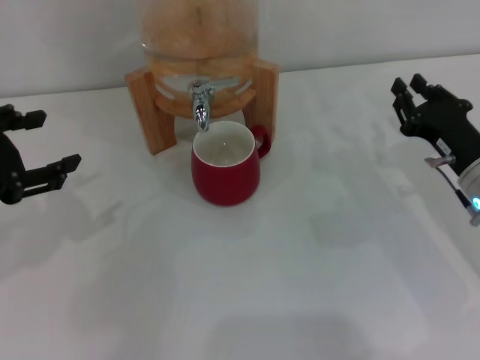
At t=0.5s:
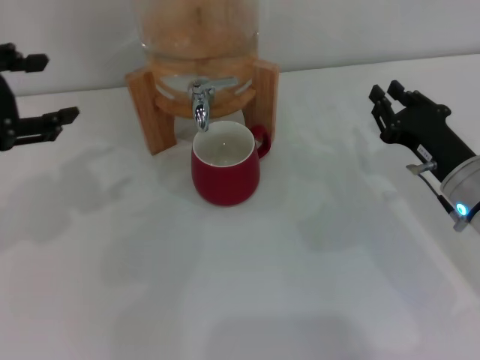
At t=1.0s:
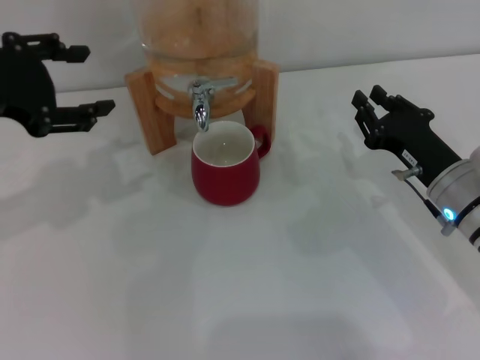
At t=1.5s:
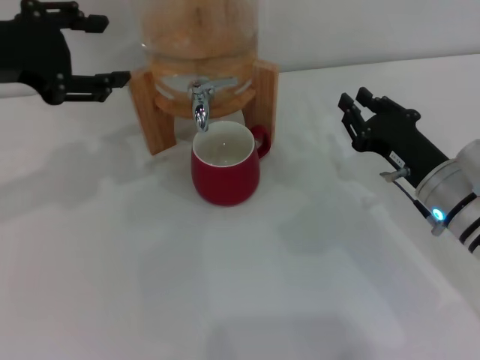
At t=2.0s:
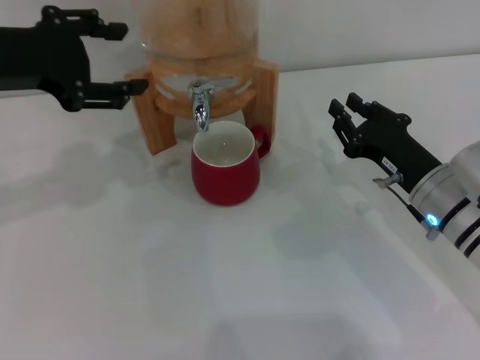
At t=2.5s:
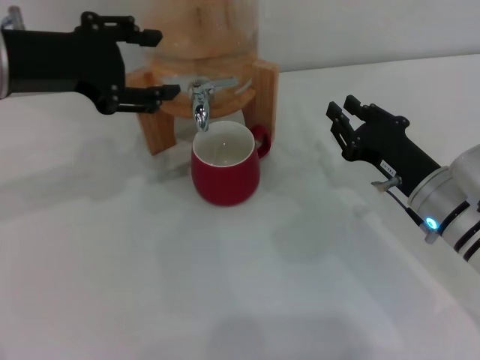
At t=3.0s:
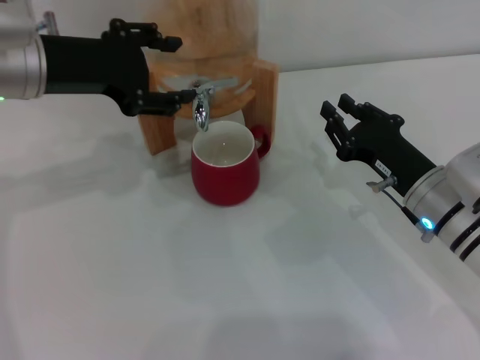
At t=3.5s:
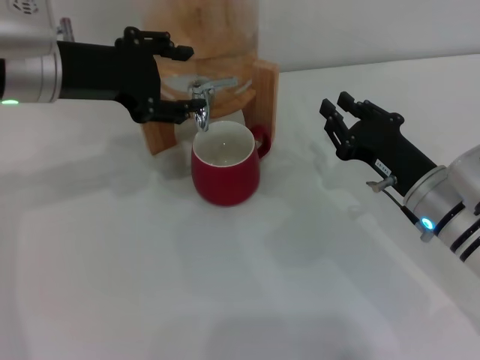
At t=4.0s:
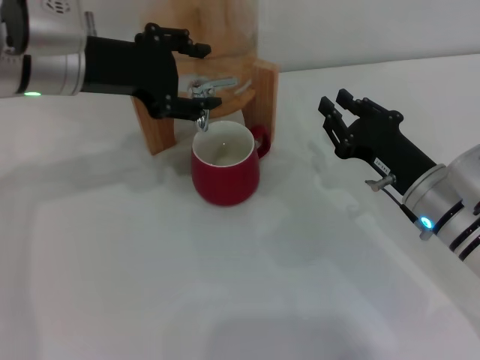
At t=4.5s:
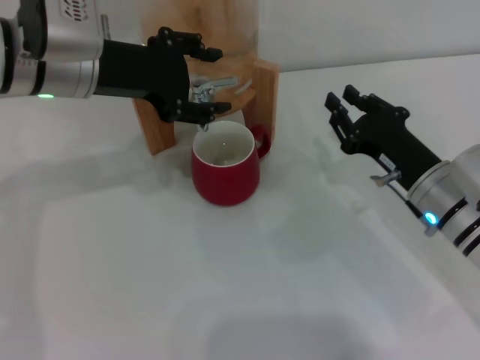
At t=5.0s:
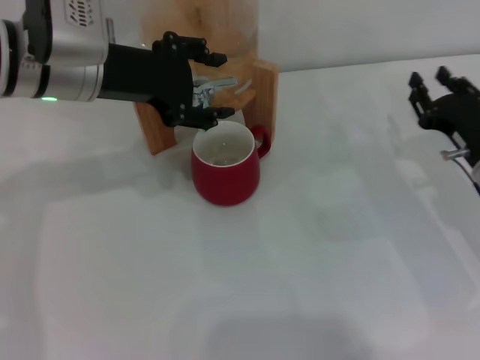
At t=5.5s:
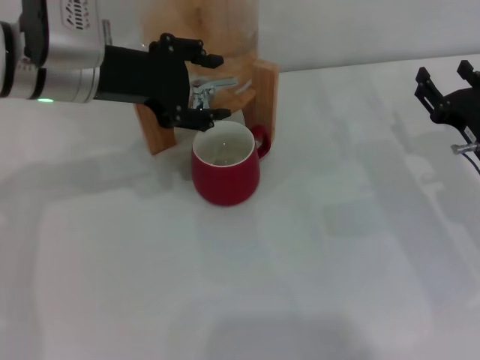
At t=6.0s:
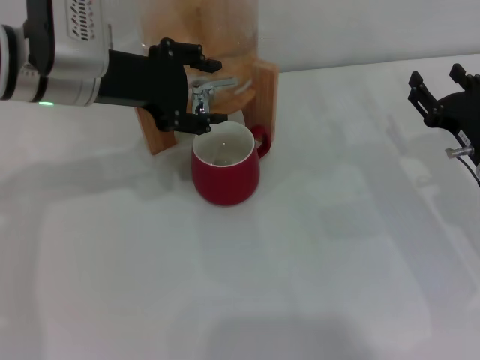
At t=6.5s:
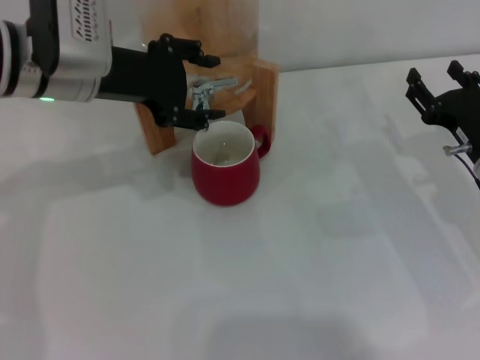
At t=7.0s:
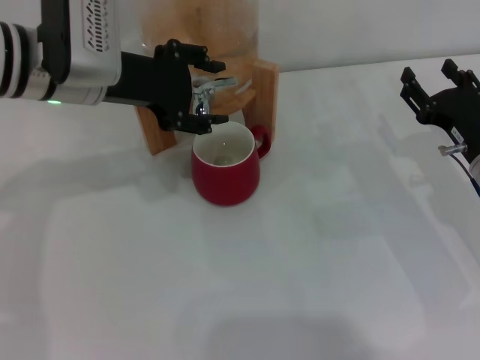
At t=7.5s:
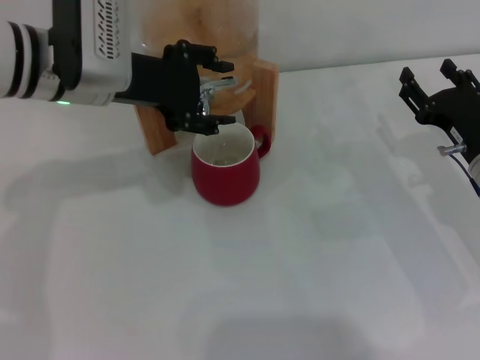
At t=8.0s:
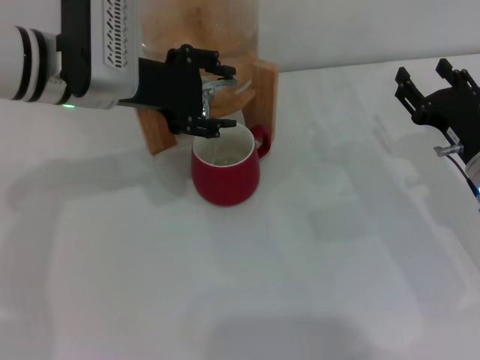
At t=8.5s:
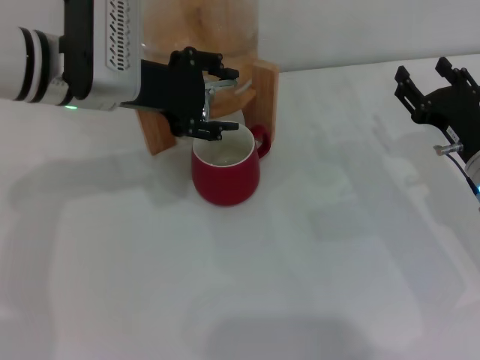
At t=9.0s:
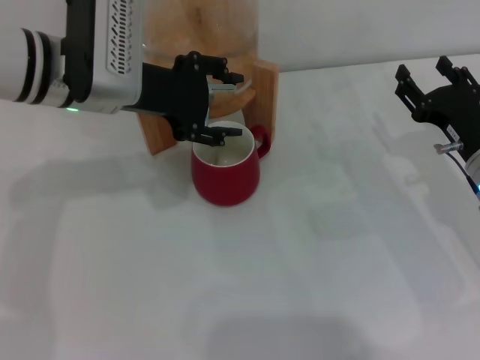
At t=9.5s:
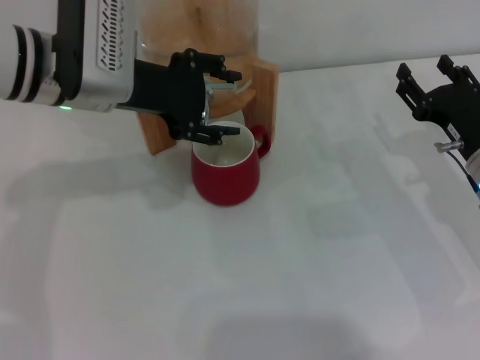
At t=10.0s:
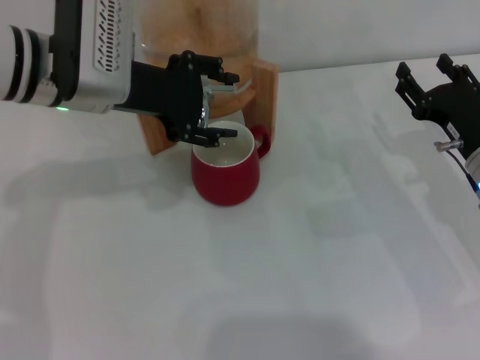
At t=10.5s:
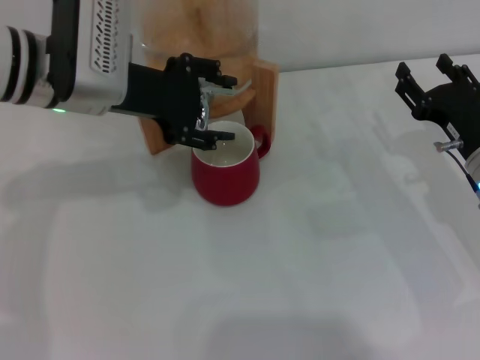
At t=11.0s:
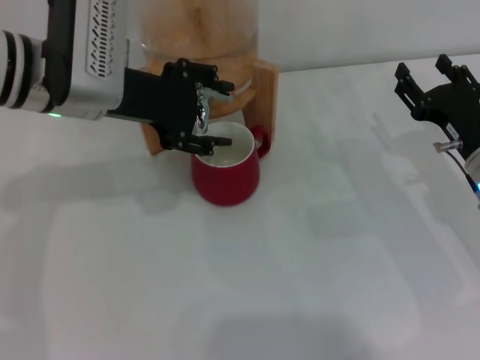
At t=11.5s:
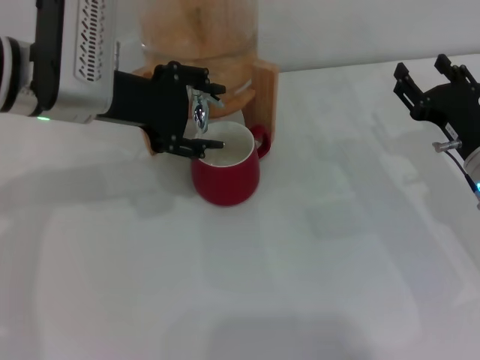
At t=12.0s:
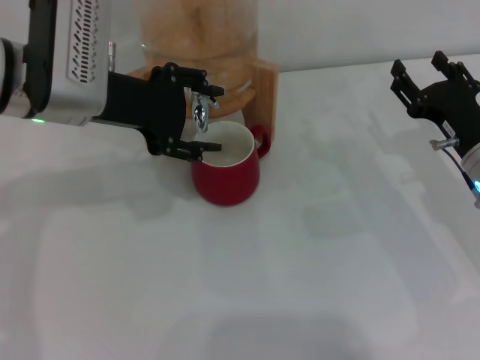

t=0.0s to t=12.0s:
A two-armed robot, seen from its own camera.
Task of the whole recording: the right gripper pick up the red cup and place it horizontally under the faucet, the left gripper turn on the faucet to fill the cup, and then turn off the faucet.
t=0.0s to t=2.0s: The left gripper is displaced forward and to the right by about 10 cm.
t=2.0s to t=4.0s: The left gripper goes roughly 5 cm to the right.
t=4.0s to t=6.0s: The right gripper heads to the right, covering about 10 cm, and opens its fingers.
t=6.0s to t=8.0s: There are only small adjustments of the grippers.
t=8.0s to t=10.0s: Both grippers stay put.
t=10.0s to t=12.0s: There are only small adjustments of the grippers.

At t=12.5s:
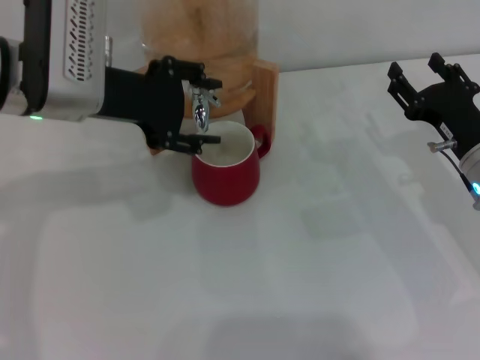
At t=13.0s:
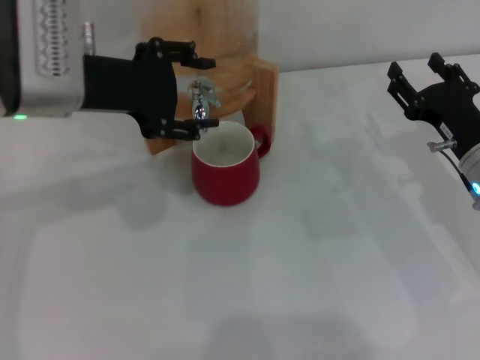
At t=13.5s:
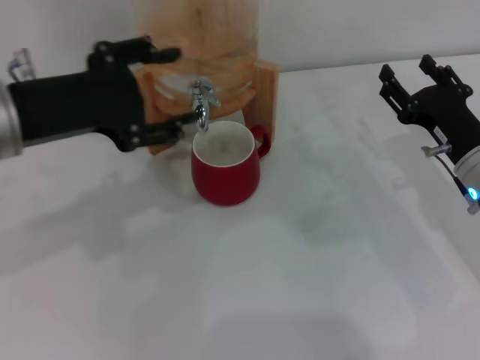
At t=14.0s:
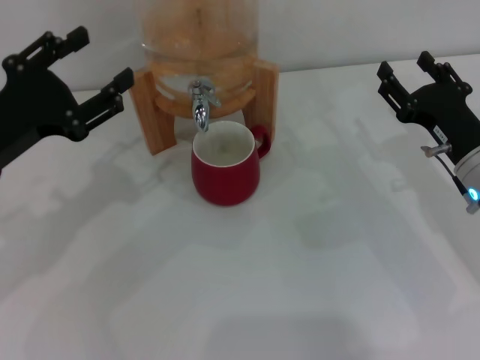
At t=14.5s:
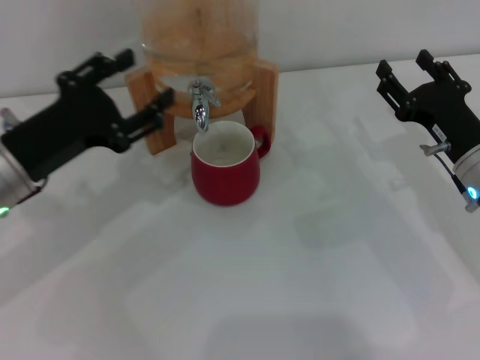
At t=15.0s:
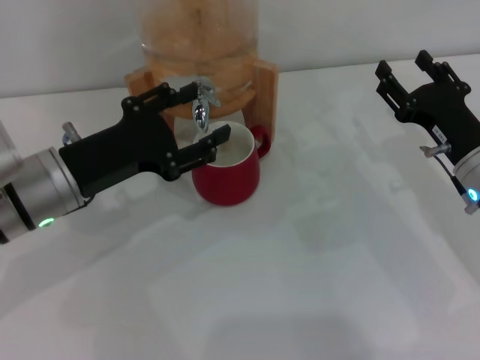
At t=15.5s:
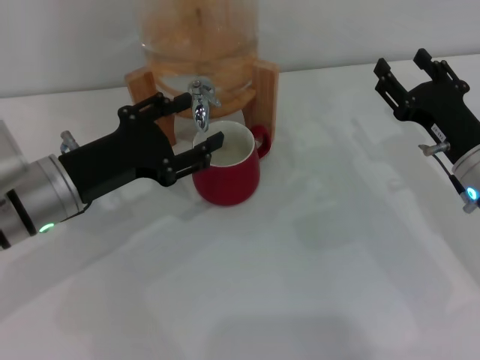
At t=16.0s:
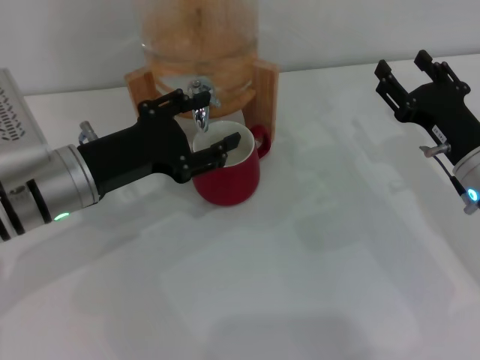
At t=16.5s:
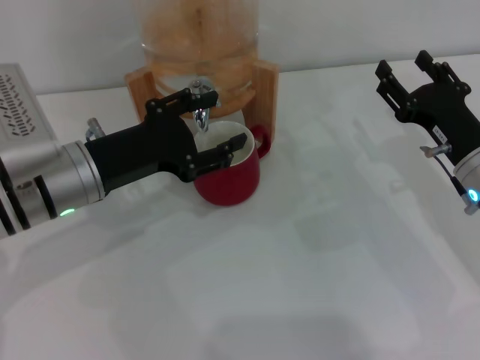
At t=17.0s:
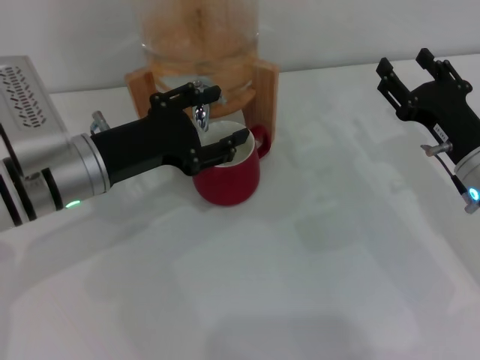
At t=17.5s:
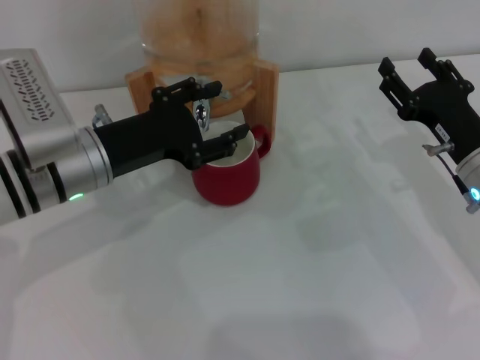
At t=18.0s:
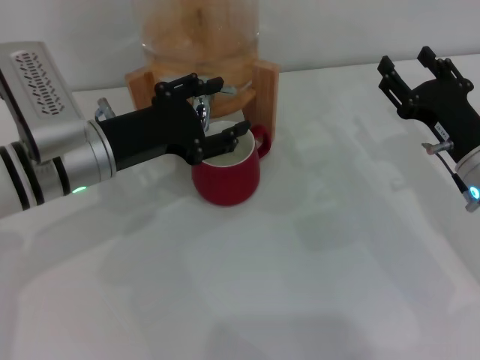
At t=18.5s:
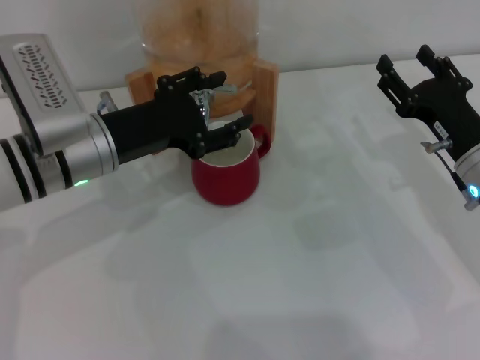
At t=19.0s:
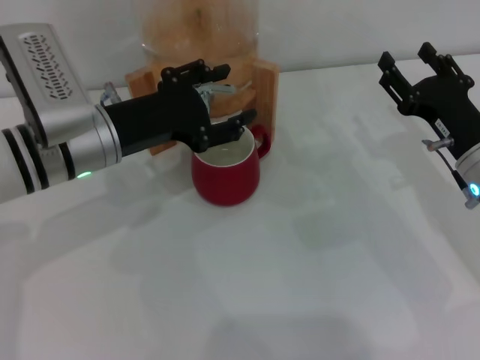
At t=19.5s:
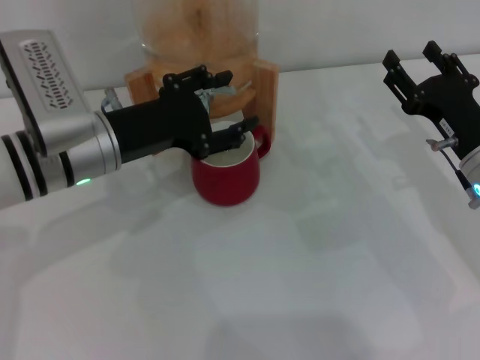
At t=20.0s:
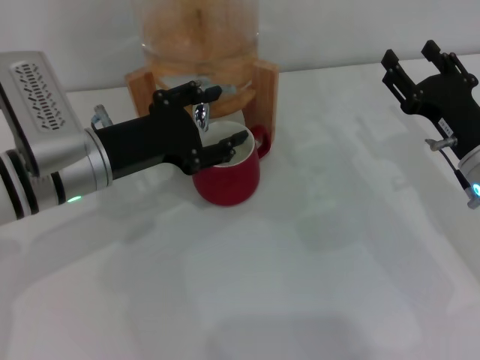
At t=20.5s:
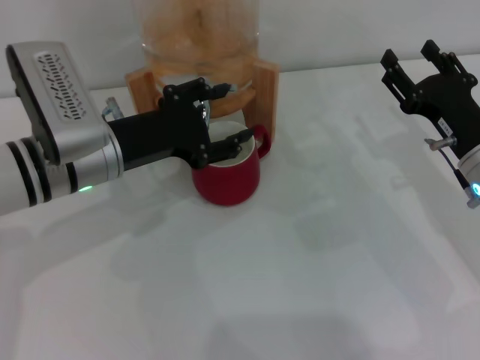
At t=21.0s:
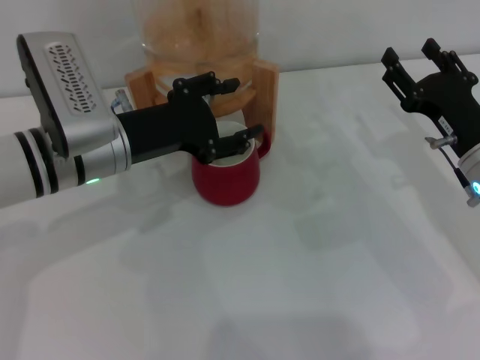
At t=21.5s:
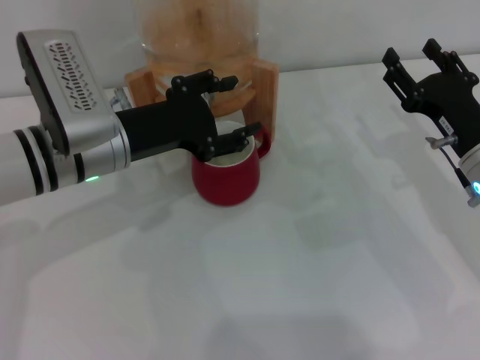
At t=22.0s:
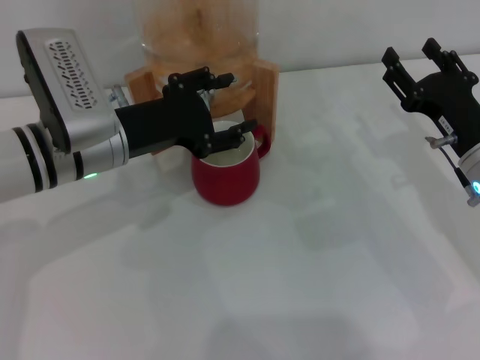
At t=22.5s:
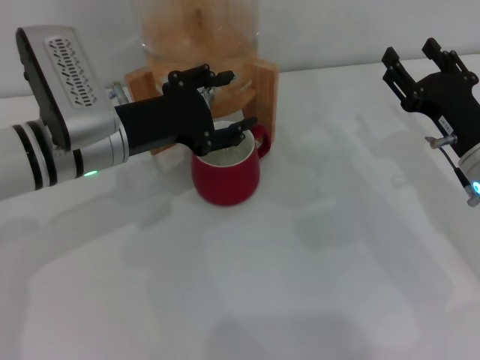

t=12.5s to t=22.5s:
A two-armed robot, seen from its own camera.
Task of the whole recording: the right gripper pick up the red cup and place it horizontally under the faucet, the left gripper turn on the faucet to fill the cup, and then turn off the faucet.
t=12.5s to t=14.5s: The left gripper travels downward, to the left and backward by roughly 10 cm.
t=14.5s to t=16.5s: The left gripper shifts roughly 5 cm to the right.
t=16.5s to t=20.5s: There are only small adjustments of the grippers.
t=20.5s to t=22.5s: Both grippers stay about where they are.

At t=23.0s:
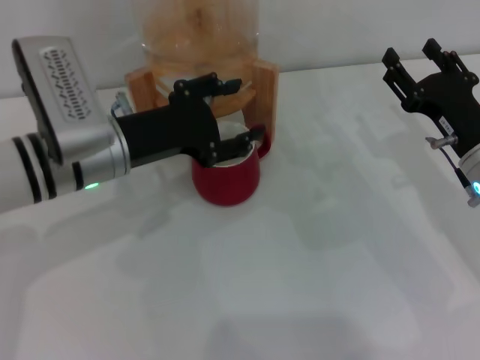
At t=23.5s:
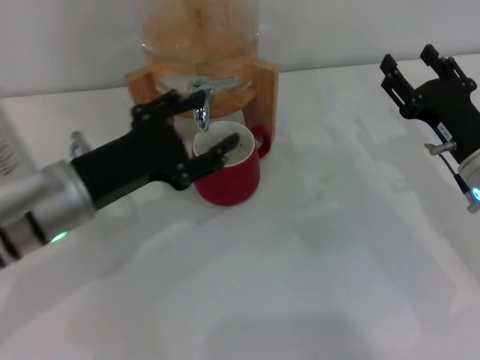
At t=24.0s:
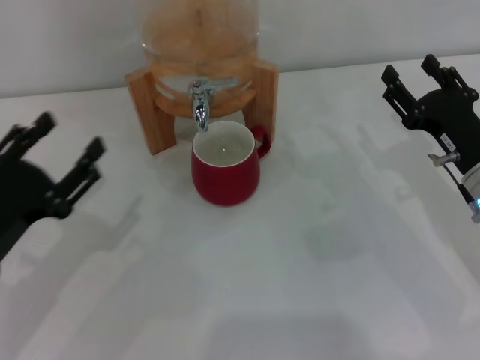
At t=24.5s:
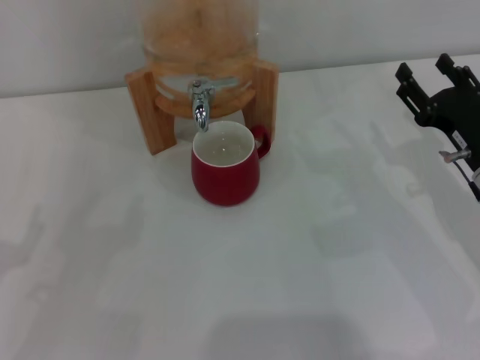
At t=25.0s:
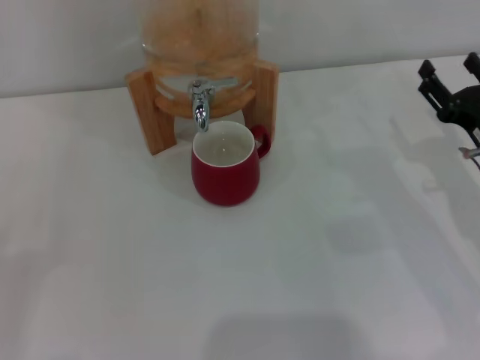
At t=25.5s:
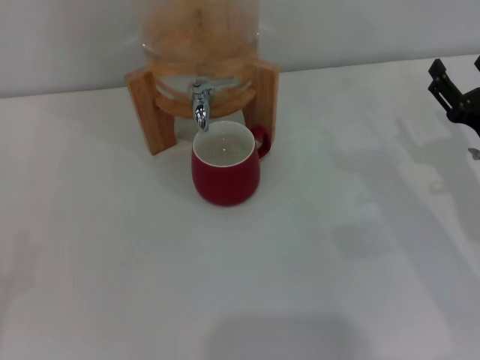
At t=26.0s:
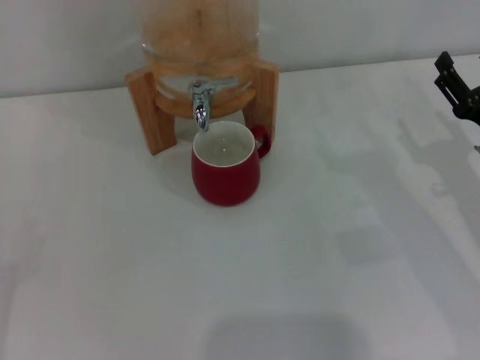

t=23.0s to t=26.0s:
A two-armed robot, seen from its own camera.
Task of the whole recording: the right gripper pick up the red cup and place it horizontally under the faucet, the left gripper turn on the faucet to fill the cup, and then turn off the faucet.
t=23.0s to t=24.5s: The left gripper travels to the left and backward by approximately 25 cm.
